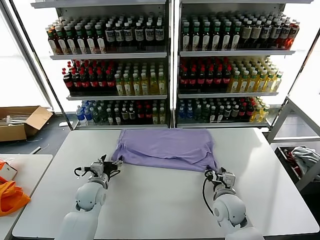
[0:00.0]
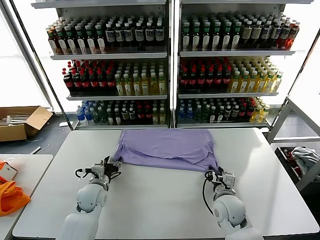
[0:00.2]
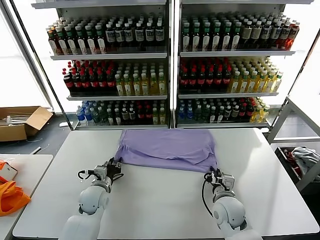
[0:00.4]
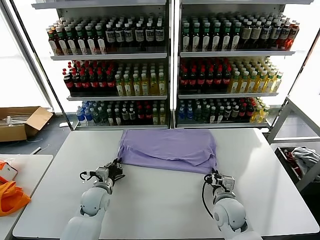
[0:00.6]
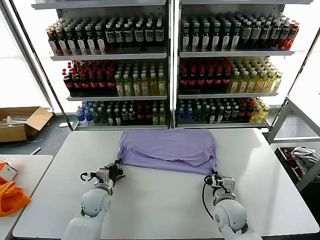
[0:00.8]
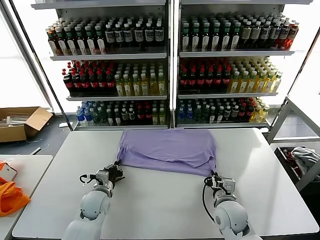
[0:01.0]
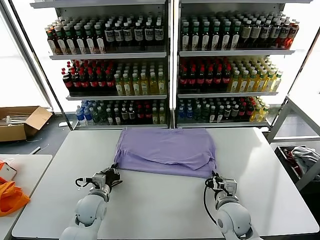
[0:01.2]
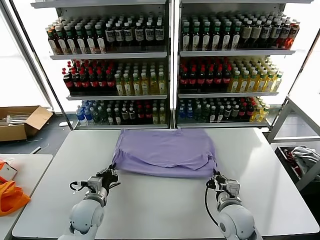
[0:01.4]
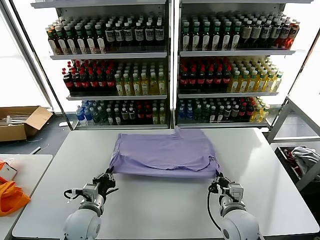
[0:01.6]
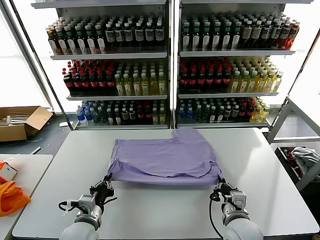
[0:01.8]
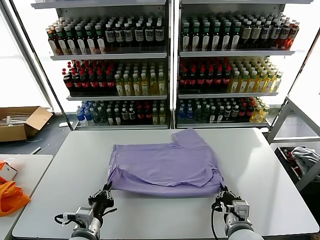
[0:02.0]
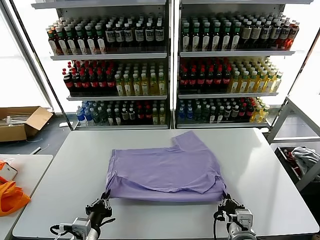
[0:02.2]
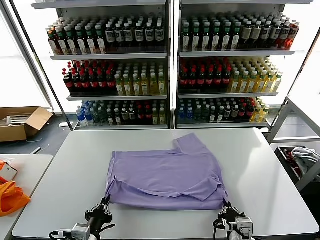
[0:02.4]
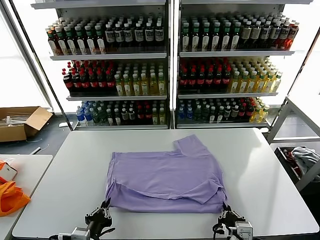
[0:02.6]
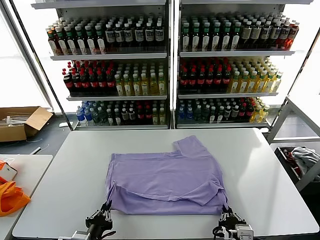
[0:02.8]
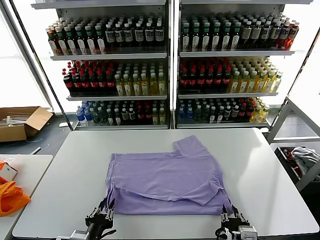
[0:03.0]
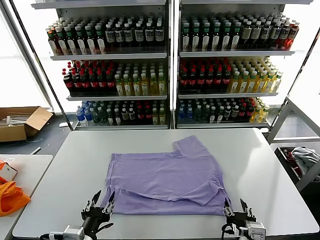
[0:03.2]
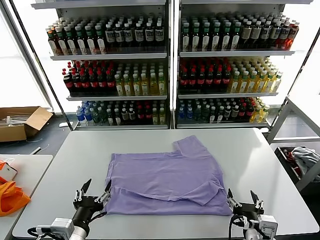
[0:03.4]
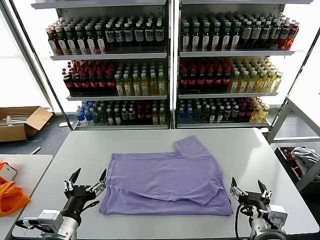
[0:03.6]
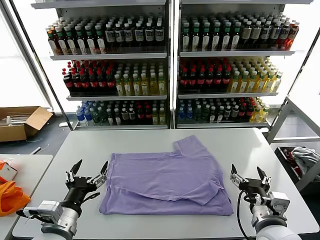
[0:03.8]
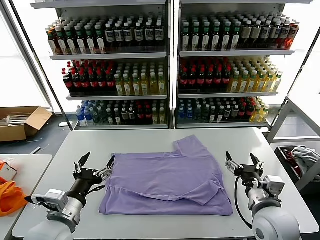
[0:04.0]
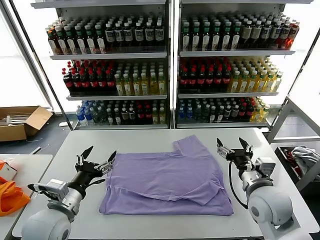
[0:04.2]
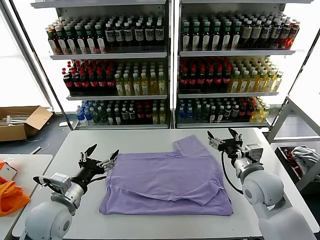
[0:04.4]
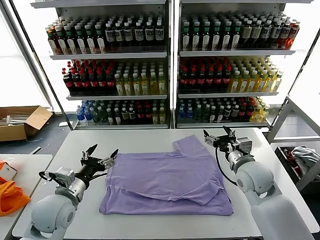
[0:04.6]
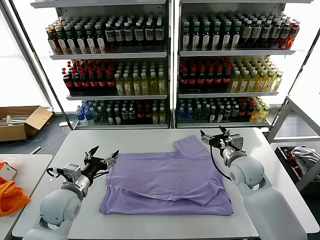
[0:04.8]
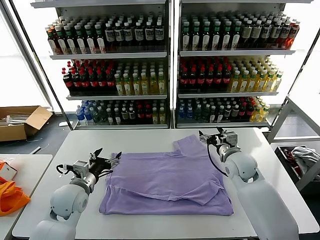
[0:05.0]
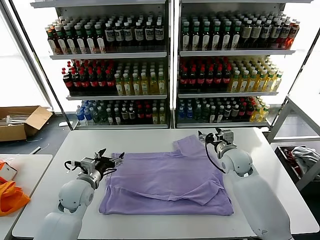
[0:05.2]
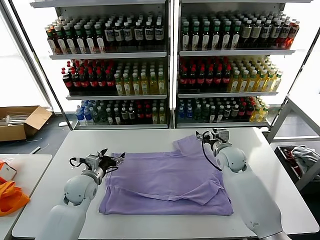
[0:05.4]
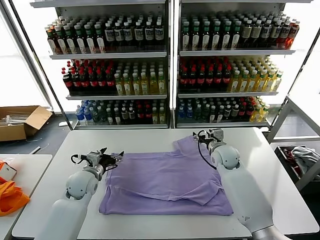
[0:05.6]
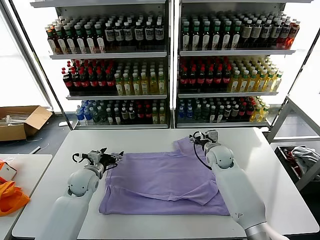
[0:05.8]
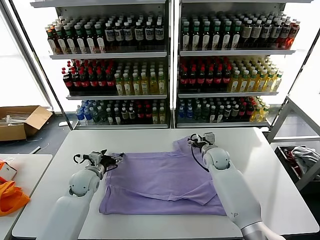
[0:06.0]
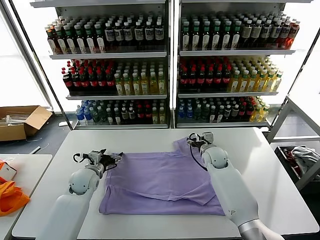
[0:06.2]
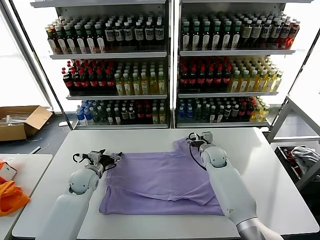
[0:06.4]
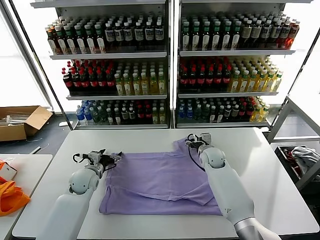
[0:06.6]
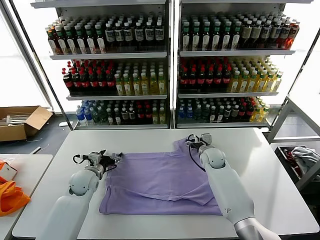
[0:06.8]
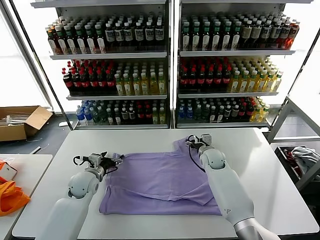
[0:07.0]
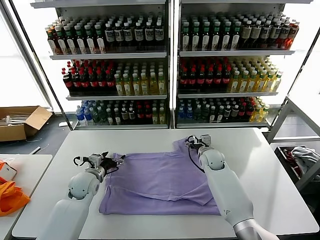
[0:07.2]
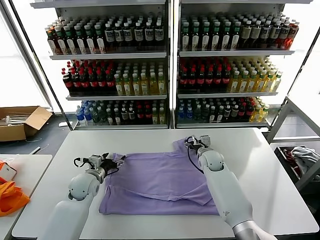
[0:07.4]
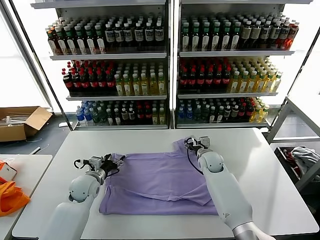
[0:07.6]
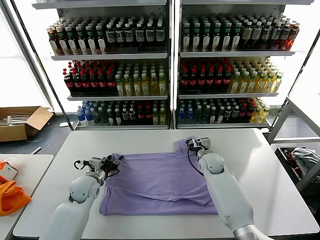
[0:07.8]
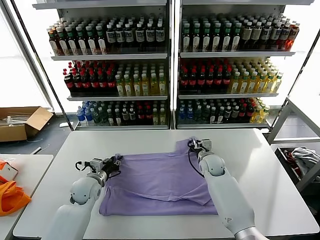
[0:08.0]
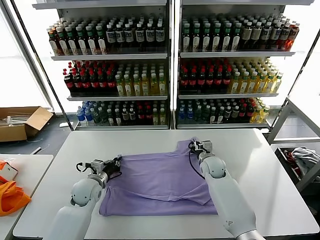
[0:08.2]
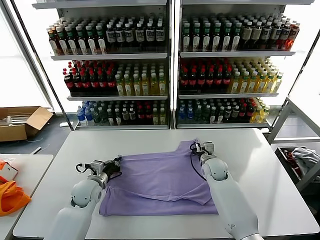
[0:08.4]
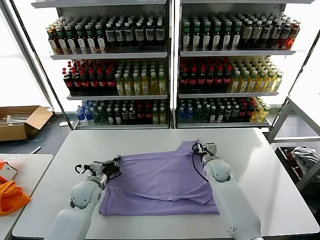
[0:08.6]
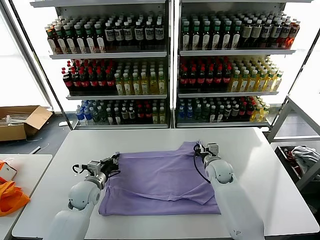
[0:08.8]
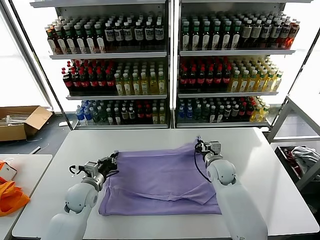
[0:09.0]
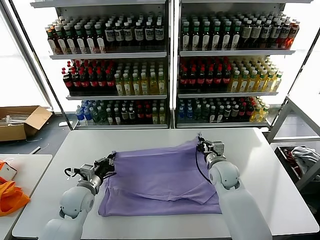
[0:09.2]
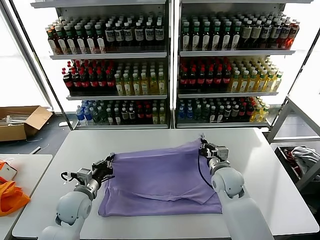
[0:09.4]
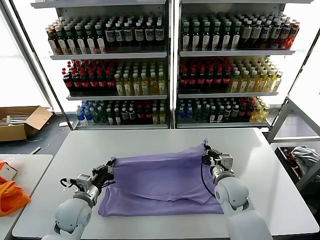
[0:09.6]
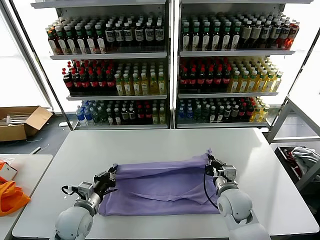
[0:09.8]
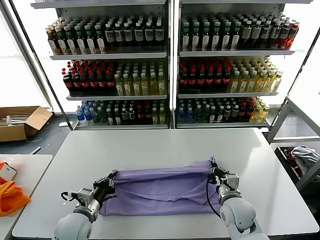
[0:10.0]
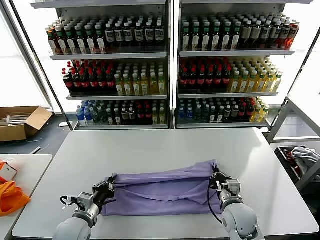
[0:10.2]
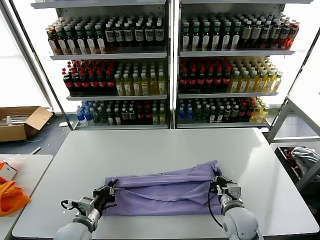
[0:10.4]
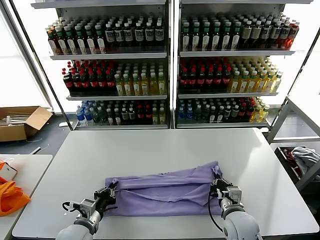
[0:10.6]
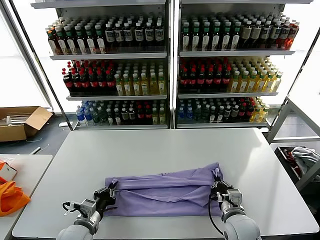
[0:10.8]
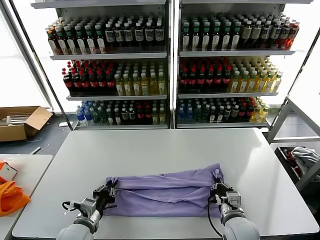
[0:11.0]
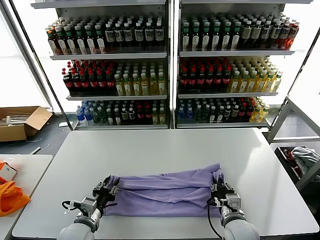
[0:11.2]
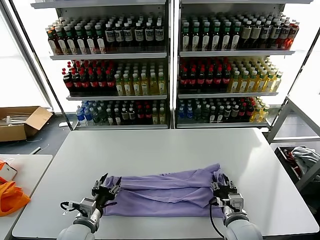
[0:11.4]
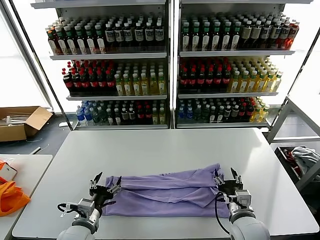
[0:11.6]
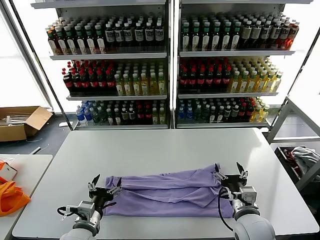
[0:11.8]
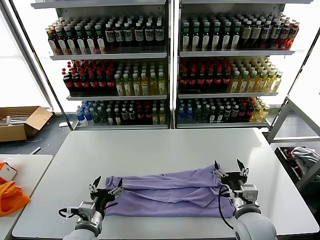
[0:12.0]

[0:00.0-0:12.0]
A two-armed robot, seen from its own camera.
Task of the whole recording: fold and organize the clothes.
Step, 0:00.0 to 0:03.0: Drag the clothes downward with both gripper.
Step, 0:03.2 to 0:08.4: use both grippers simultaneously to clamp the upper edge of the clothing fabric.
Step, 0:08.8 to 0:11.4: use both grippers to drag the upper edge of the fabric backward and fold it over the lower edge.
0:00.0 to 0:01.6: The grippers both shift backward by roughly 10 cm. The right gripper closes its fingers. Meanwhile the left gripper closes up.
0:01.6 to 0:03.0: The two grippers go approximately 15 cm backward. The right gripper opens up.
0:03.0 to 0:04.4: The left gripper is displaced forward, upward and to the left by roughly 15 cm, and opens its fingers, while the right gripper travels forward by roughly 20 cm, and opens its fingers.
0:04.4 to 0:06.0: The two grippers go some 20 cm forward and downward.
0:06.0 to 0:07.6: The grippers make only small movements.
0:07.6 to 0:09.0: The left gripper closes its fingers. Meanwhile the right gripper moves backward, roughly 5 cm, and closes its fingers.
0:09.0 to 0:10.4: The grippers both shift backward by approximately 15 cm.
0:10.4 to 0:12.0: The left gripper opens; the right gripper heads upward, covering some 5 cm, and opens up.

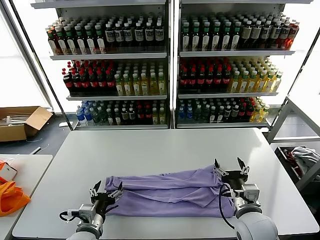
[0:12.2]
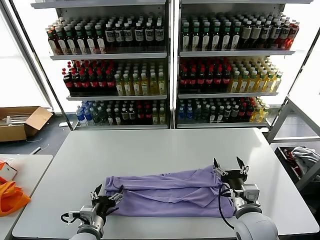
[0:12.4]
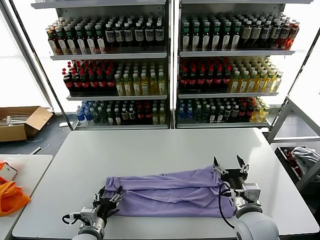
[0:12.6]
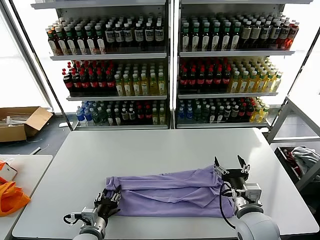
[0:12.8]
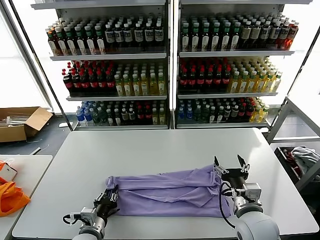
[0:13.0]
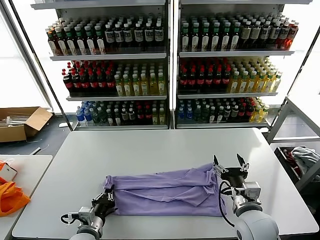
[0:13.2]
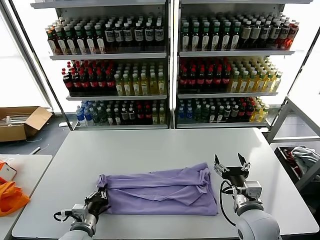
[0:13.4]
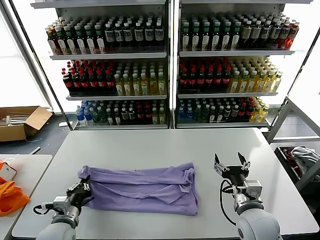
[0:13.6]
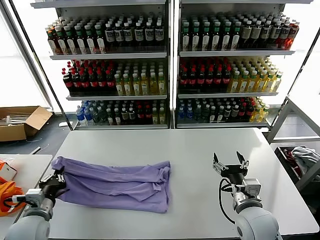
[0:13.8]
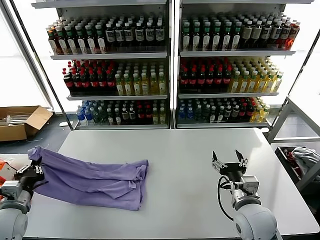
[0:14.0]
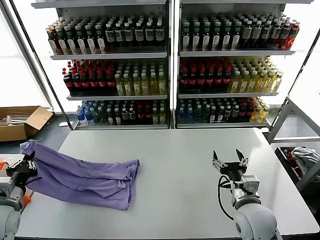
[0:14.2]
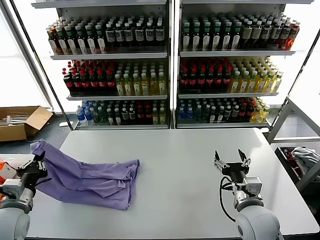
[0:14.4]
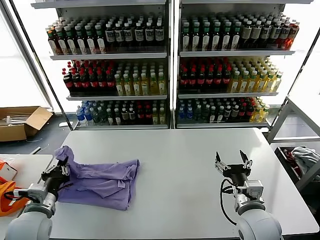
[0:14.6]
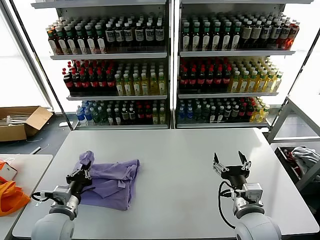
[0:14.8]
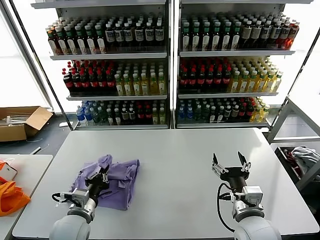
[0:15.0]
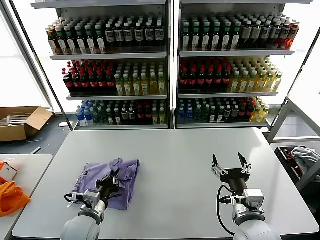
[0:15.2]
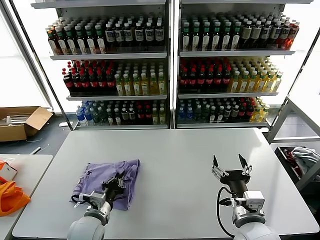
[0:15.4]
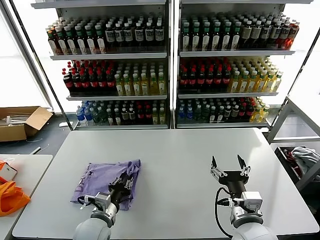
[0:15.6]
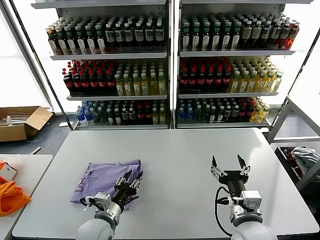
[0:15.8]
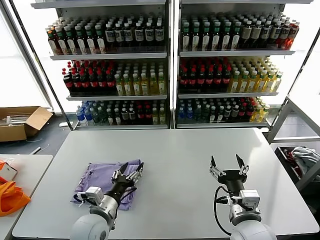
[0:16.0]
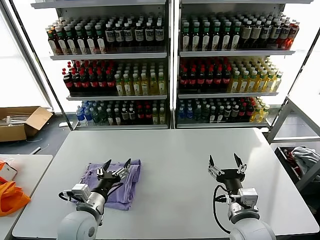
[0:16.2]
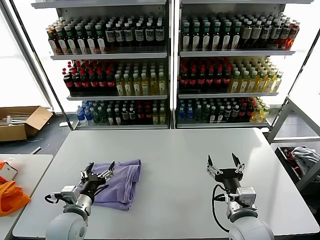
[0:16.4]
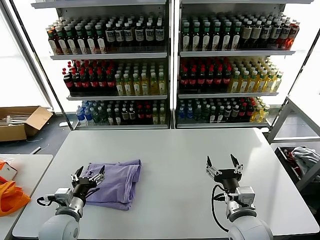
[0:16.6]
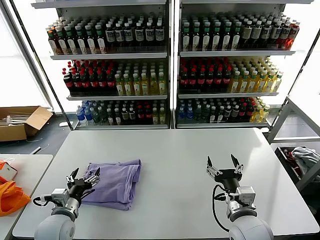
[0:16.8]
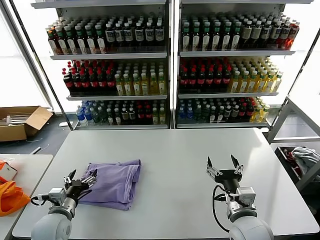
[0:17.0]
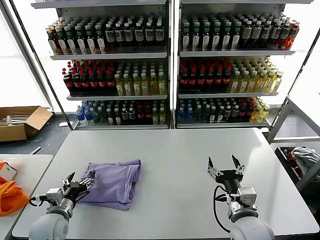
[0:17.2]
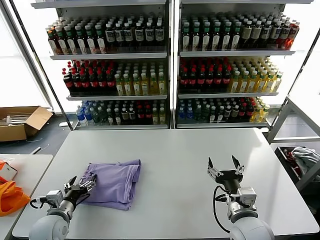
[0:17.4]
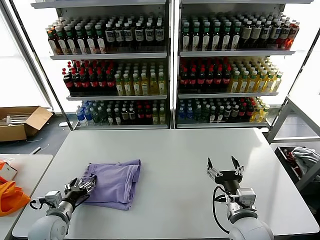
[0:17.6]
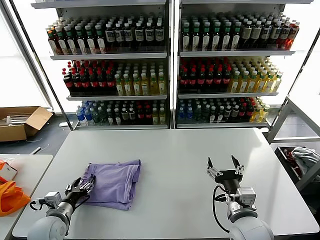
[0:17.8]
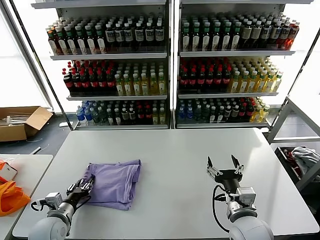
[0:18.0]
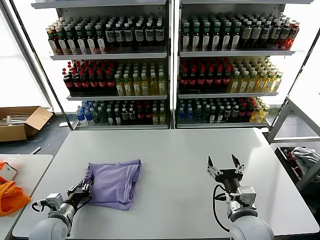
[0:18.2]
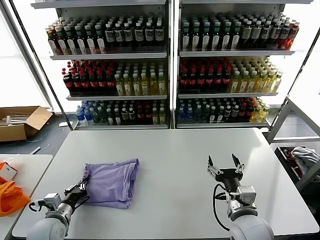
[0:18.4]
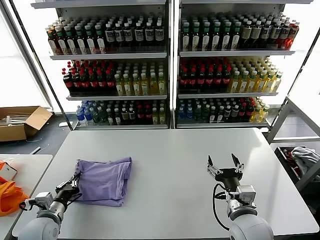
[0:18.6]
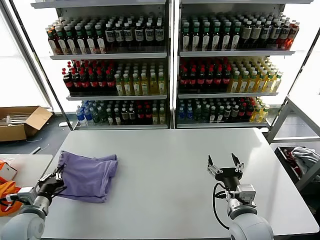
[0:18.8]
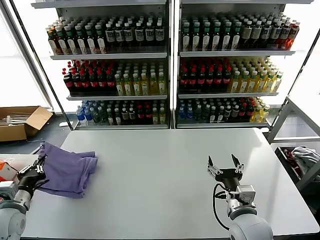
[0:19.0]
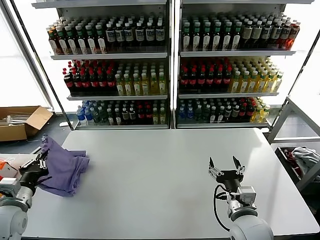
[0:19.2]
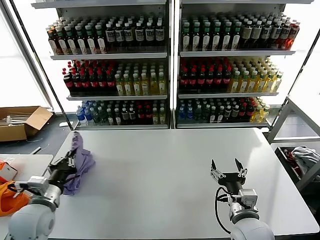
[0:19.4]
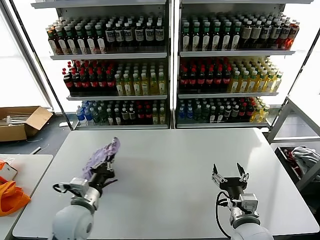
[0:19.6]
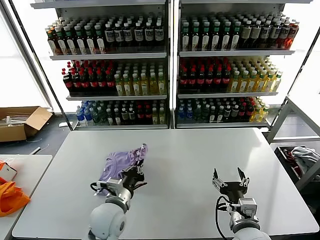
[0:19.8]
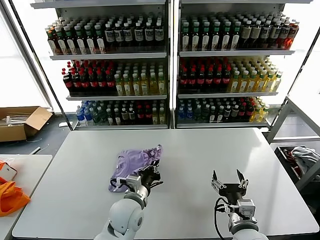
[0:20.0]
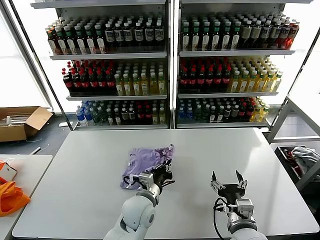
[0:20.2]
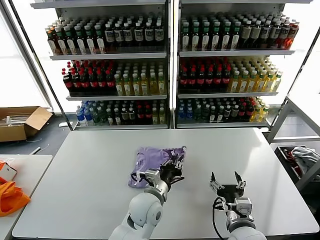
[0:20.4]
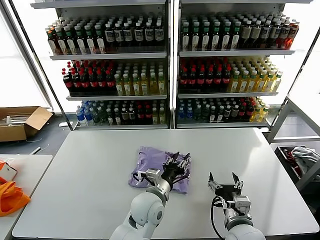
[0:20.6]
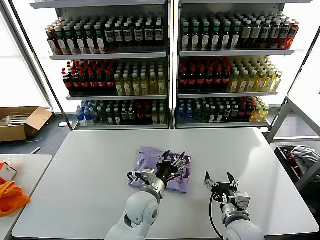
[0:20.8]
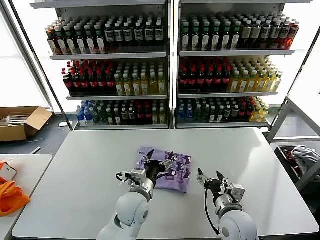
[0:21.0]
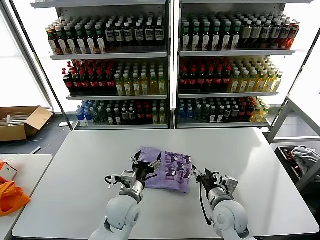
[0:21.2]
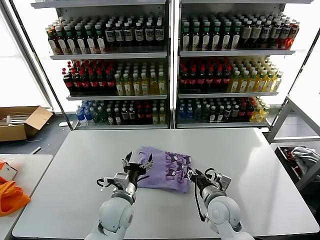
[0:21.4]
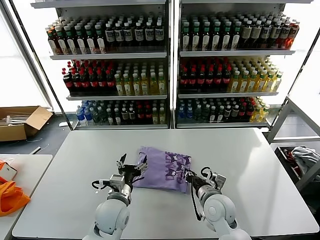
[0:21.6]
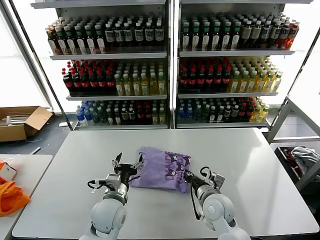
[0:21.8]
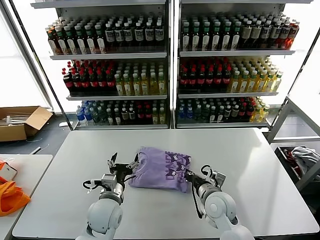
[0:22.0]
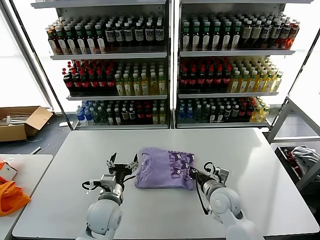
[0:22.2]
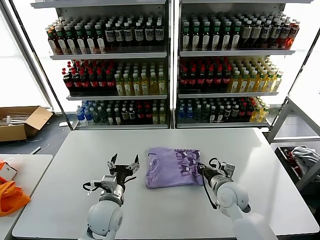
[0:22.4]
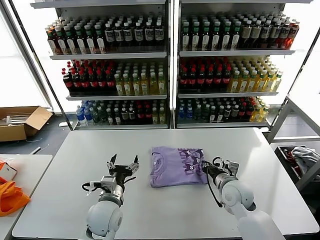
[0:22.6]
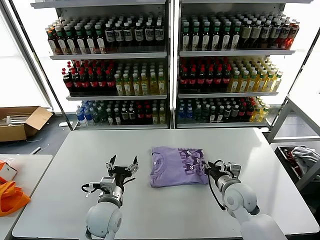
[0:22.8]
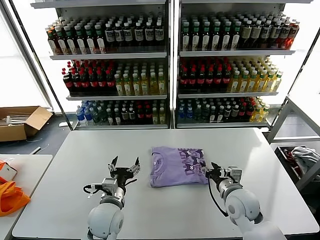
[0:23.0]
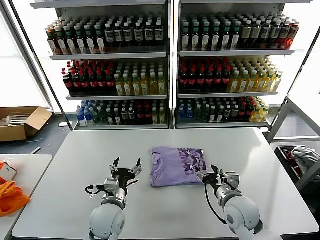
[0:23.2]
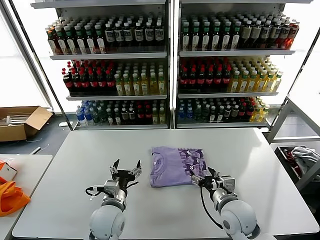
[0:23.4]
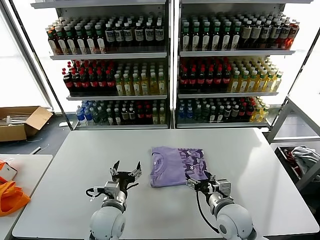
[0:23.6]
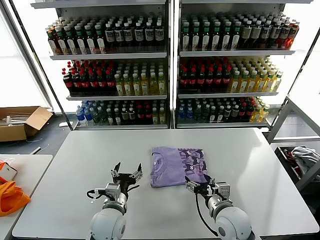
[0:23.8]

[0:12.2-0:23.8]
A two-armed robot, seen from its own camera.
Task of the whole recording: fold and organize the clothes.
Step, 0:12.2 to 0:13.2: use the left gripper to clamp the left edge of the fabric.
Step, 0:13.4 to 0:15.6: use the left gripper to drag the left edge of the fabric to the left and folds it over the right edge.
Step, 0:15.8 to 0:20.4: Flip the folded clothes over with left gripper.
0:12.2 to 0:13.6: The left gripper travels to the left by about 5 cm, and closes up.
0:13.6 to 0:15.0: The left gripper goes to the left and returns, about 15 cm each way.
0:15.0 to 0:16.6: The left gripper moves some 5 cm to the right and comes back, and opens its fingers.
0:16.6 to 0:18.0: The left gripper heads to the left, covering roughly 5 cm, and closes its fingers.
0:18.0 to 0:19.4: The left gripper heads upward, covering about 10 cm, and closes up.
0:19.4 to 0:21.0: The left gripper travels to the right by some 30 cm, and opens its fingers.
0:21.0 to 0:22.4: The right gripper travels forward by about 10 cm, and closes; the left gripper goes approximately 10 cm to the left.
0:22.4 to 0:23.8: The right gripper shifts some 10 cm backward, and opens.
